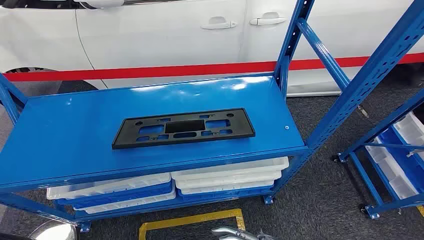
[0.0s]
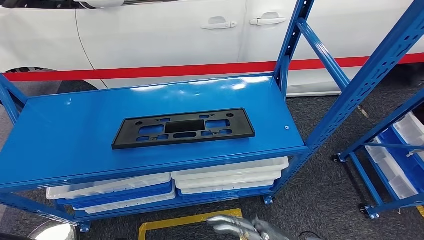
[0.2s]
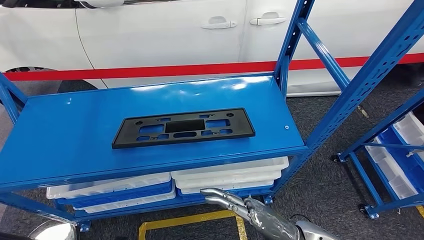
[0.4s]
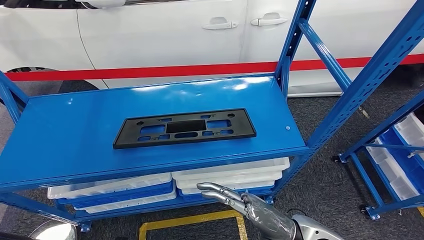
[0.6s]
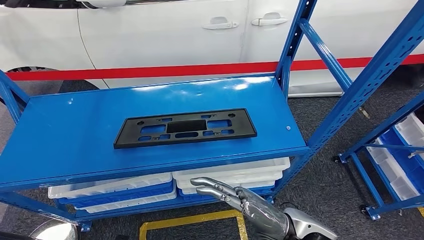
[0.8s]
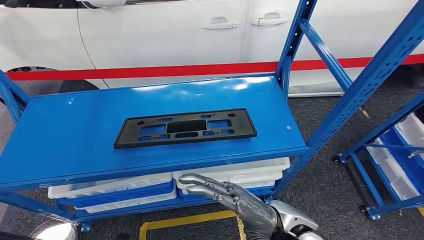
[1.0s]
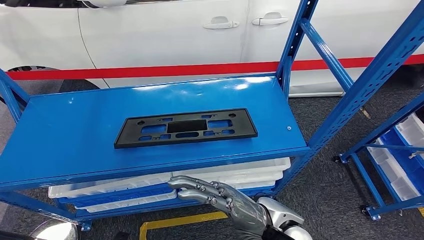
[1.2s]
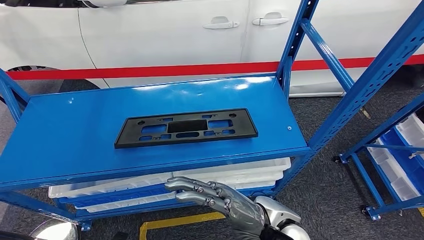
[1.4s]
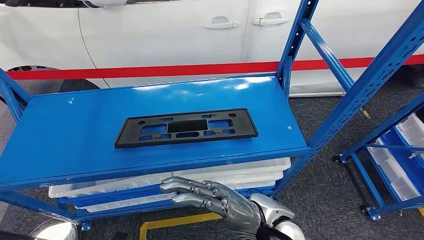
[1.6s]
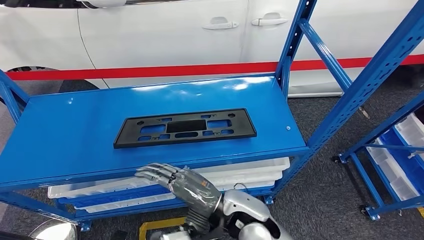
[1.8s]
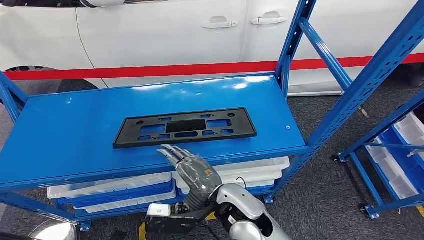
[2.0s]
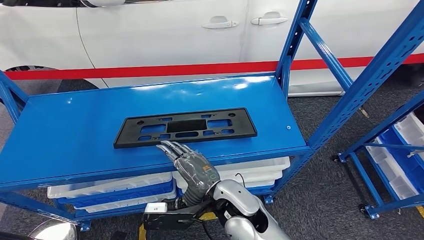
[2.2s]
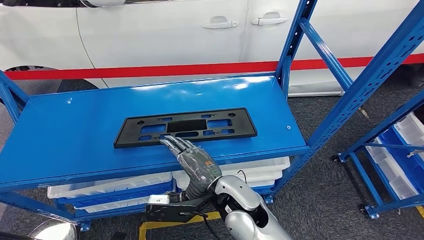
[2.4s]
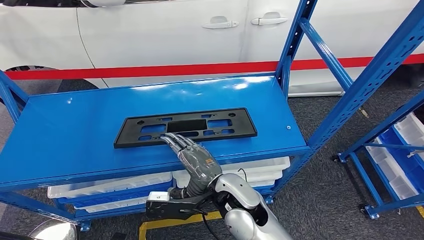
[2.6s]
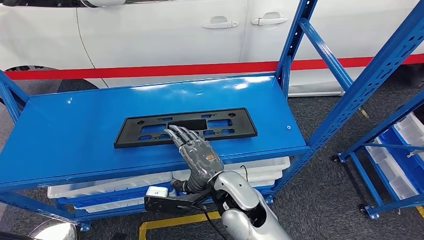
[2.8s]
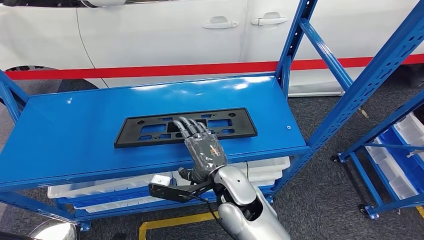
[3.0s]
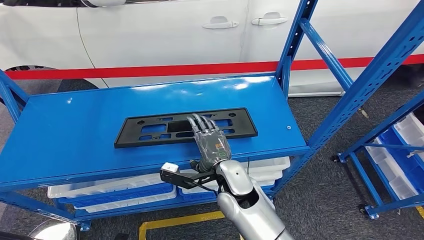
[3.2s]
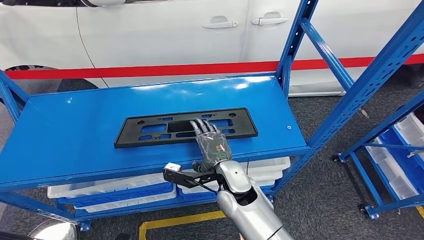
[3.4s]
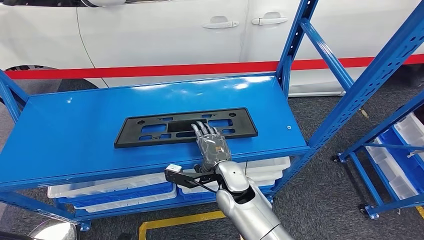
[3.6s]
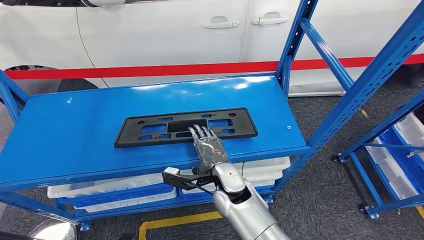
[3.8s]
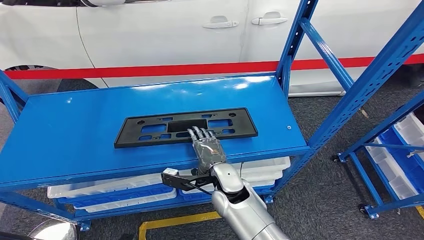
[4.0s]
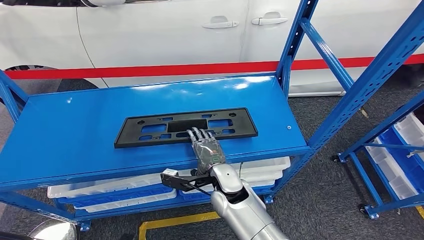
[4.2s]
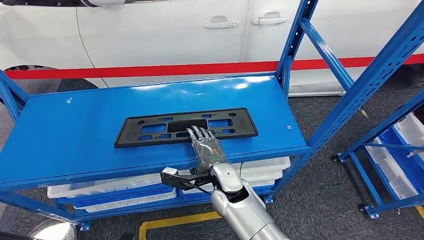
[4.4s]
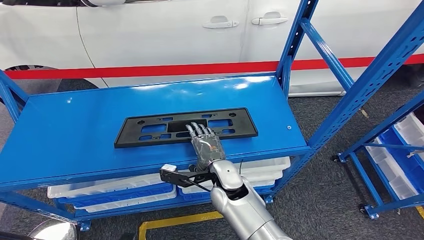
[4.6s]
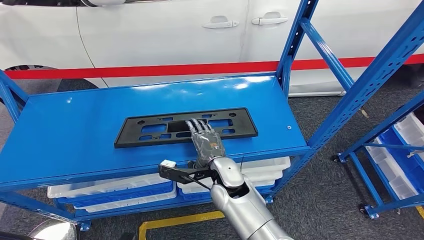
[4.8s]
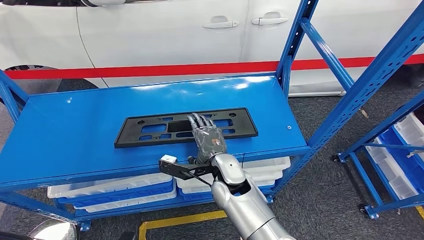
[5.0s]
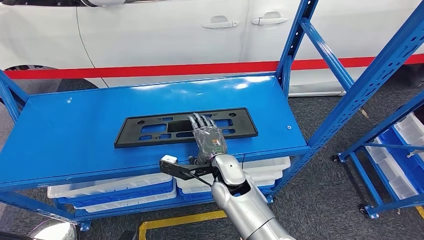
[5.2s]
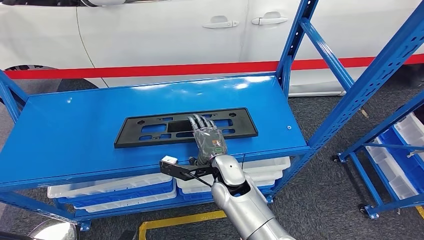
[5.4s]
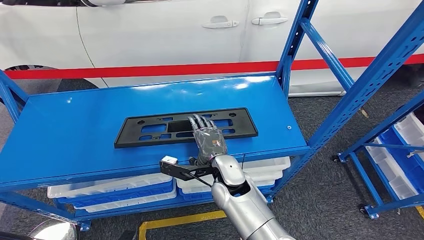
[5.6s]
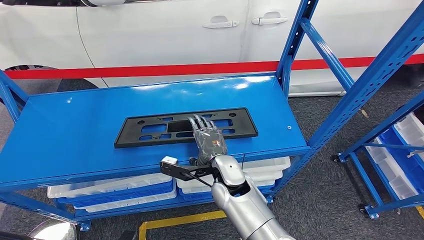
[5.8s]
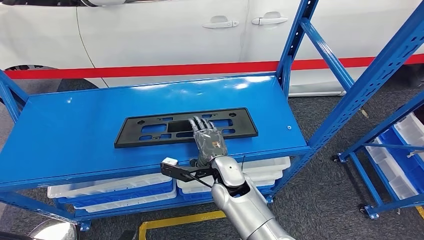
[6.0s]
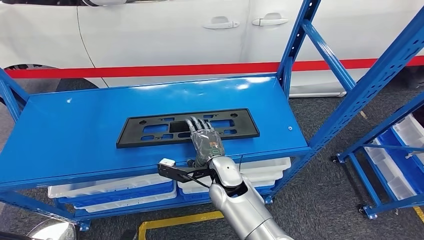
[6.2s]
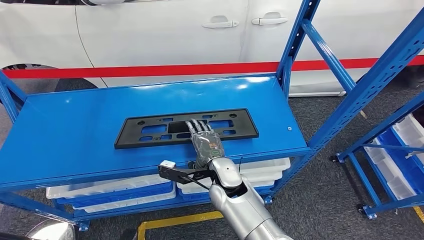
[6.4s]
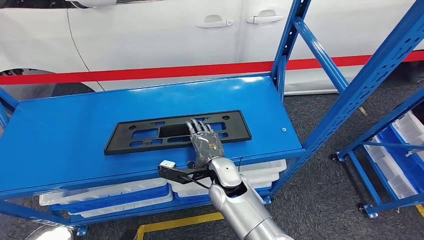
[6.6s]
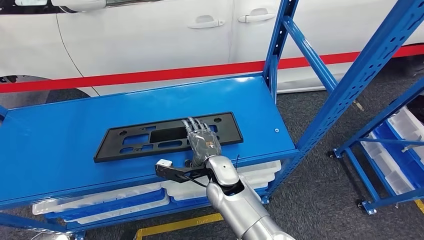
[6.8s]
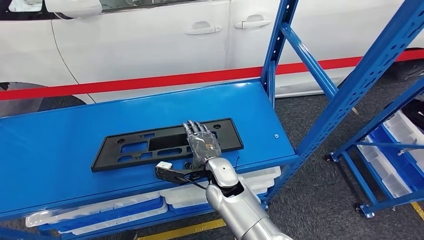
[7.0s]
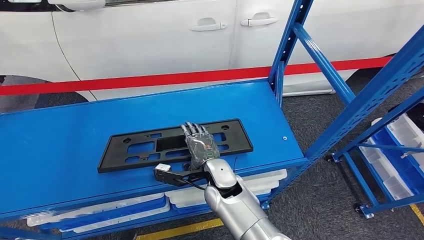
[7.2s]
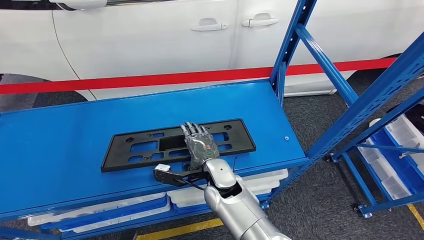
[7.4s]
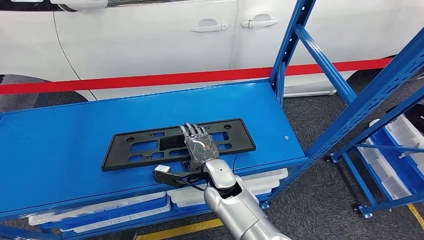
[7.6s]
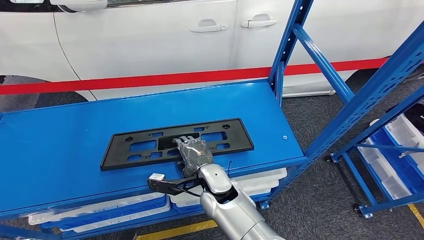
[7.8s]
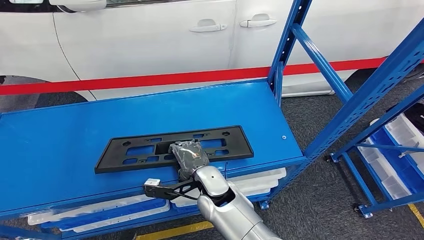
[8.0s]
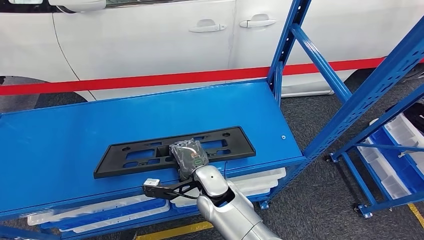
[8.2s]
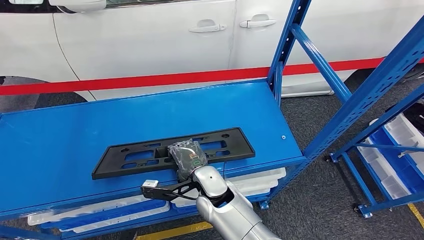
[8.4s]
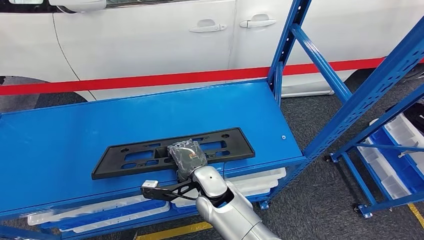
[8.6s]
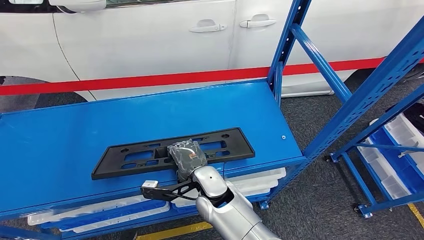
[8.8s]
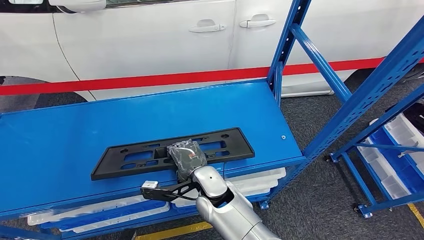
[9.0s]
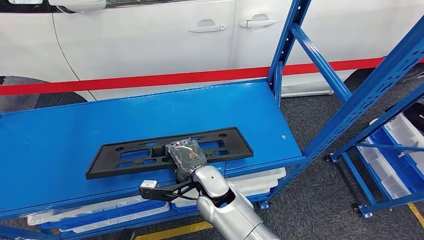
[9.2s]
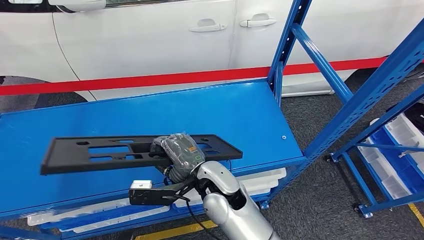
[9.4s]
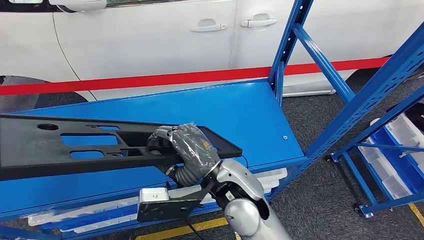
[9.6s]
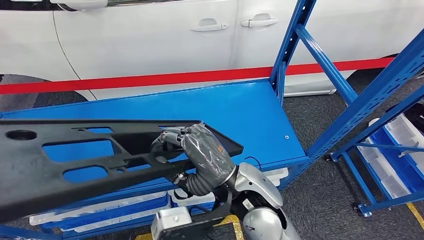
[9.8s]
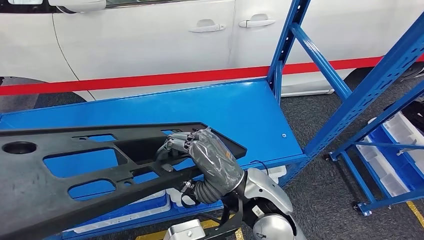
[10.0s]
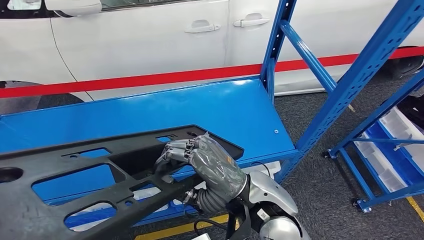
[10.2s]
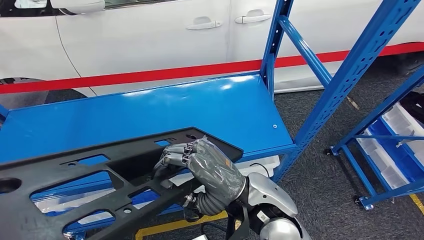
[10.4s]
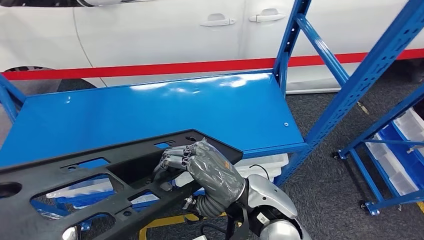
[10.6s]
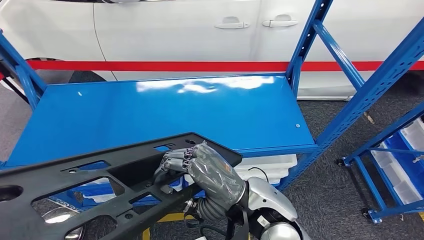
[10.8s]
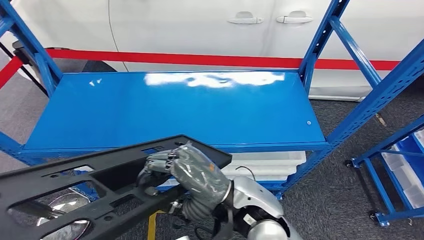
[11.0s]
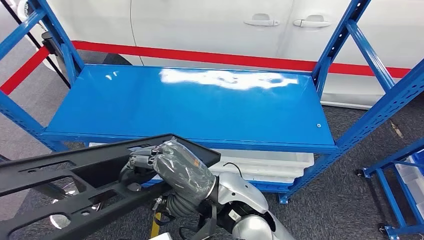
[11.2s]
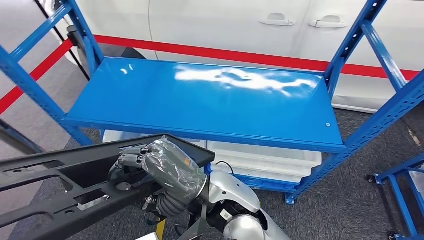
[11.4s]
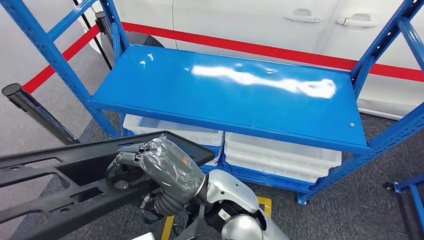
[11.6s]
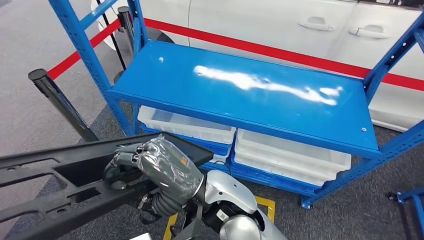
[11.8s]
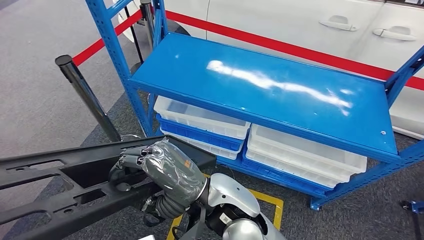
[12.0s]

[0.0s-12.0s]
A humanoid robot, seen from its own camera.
1.6s to 3.0s: The right hand is displaced to the left by some 5 cm.
3.0s to 4.4s: The right hand goes some 5 cm downward.
4.4s to 6.0s: The hands stay close to where they were, moving slightly.
7.6s to 9.0s: The hands make only small movements.

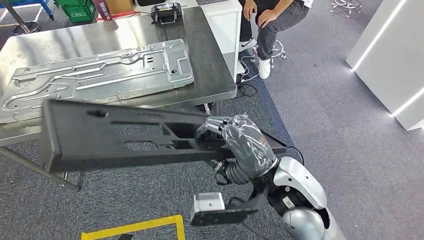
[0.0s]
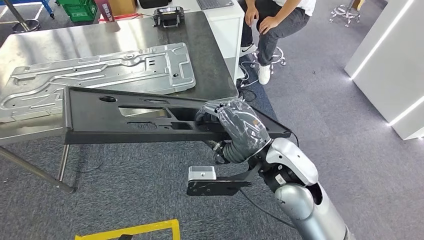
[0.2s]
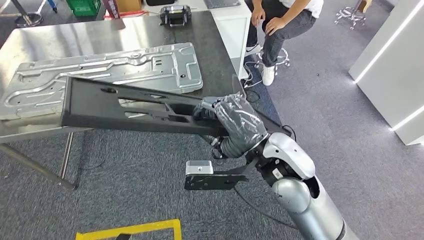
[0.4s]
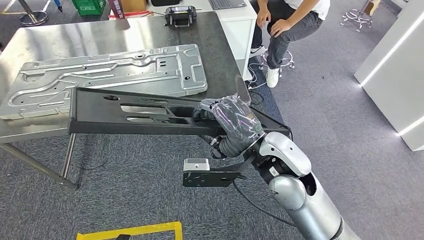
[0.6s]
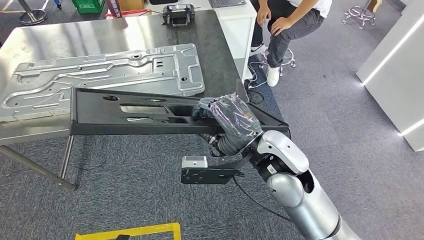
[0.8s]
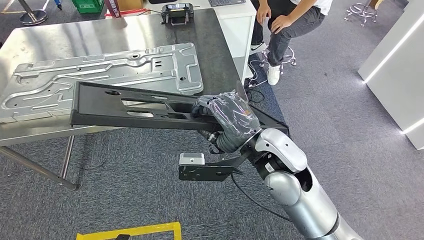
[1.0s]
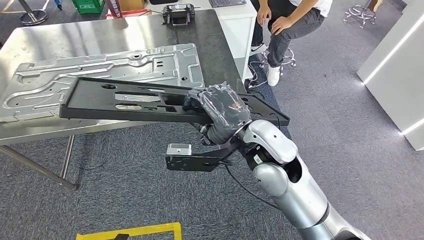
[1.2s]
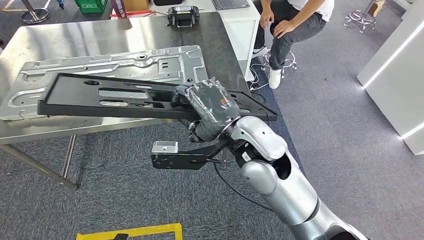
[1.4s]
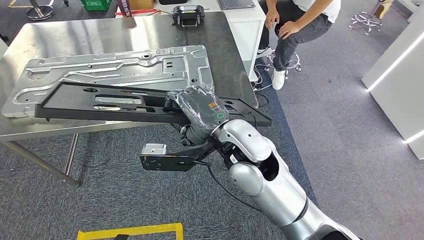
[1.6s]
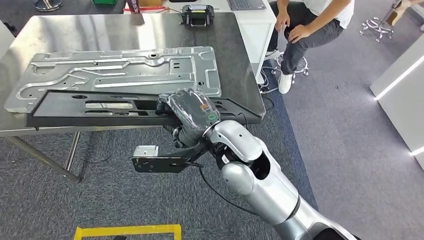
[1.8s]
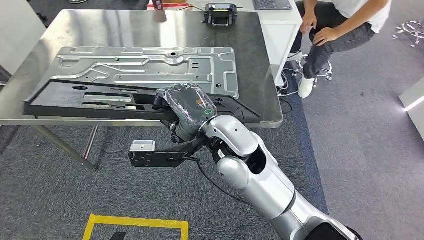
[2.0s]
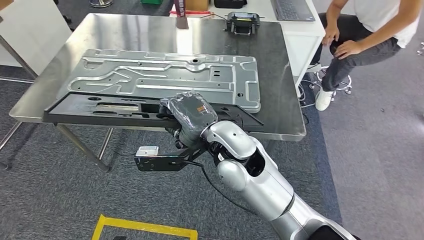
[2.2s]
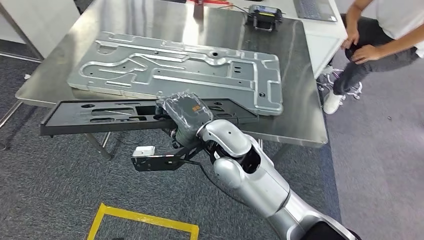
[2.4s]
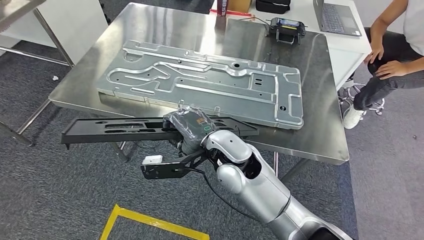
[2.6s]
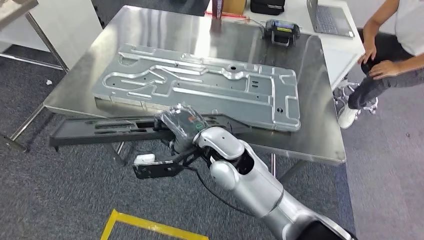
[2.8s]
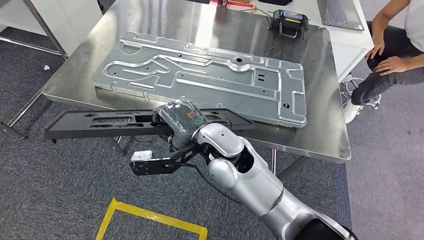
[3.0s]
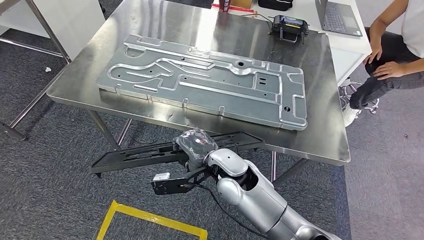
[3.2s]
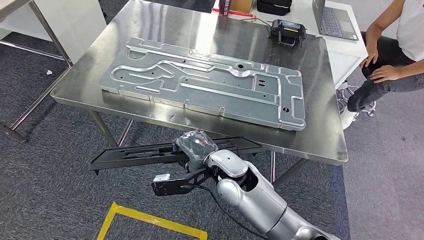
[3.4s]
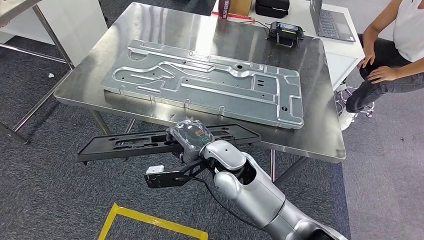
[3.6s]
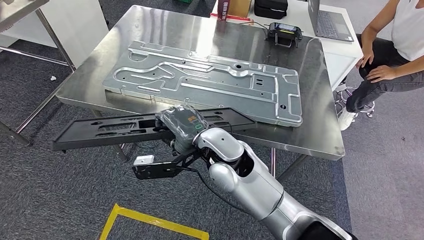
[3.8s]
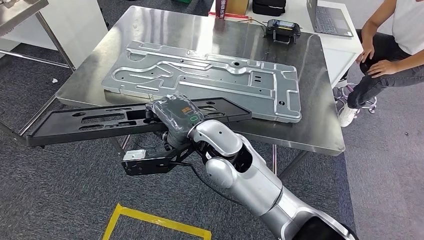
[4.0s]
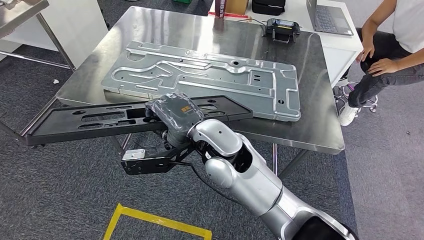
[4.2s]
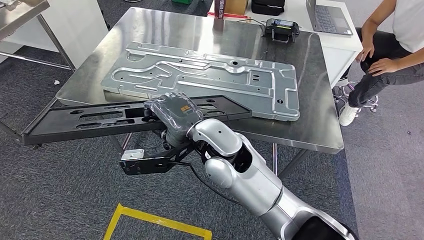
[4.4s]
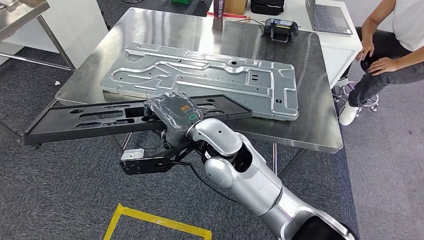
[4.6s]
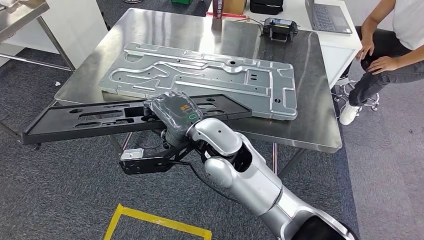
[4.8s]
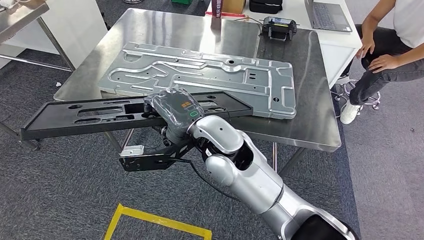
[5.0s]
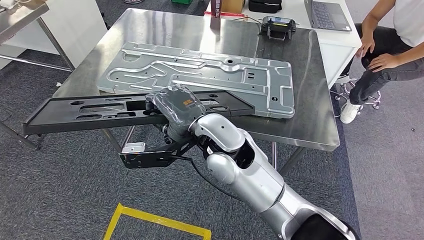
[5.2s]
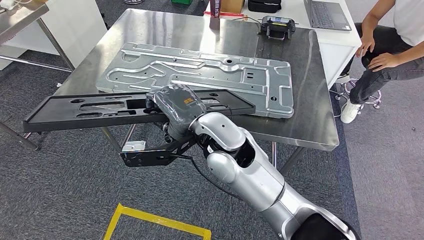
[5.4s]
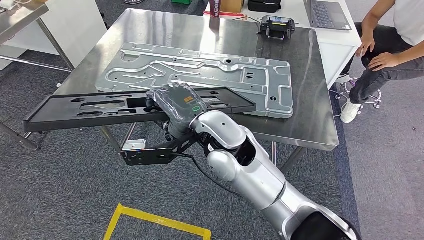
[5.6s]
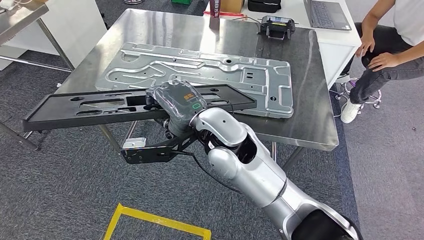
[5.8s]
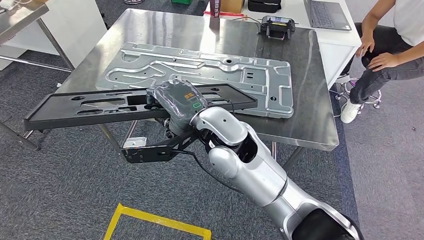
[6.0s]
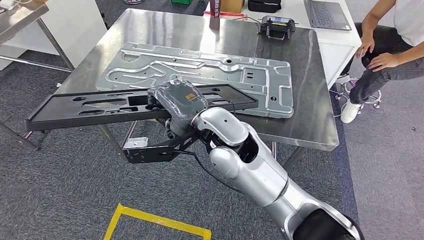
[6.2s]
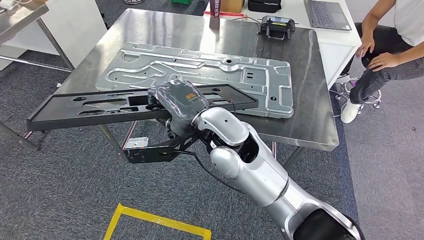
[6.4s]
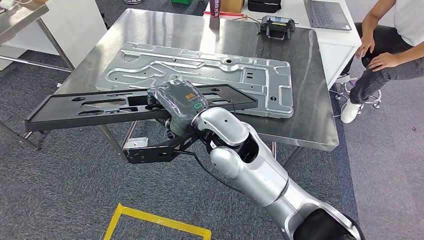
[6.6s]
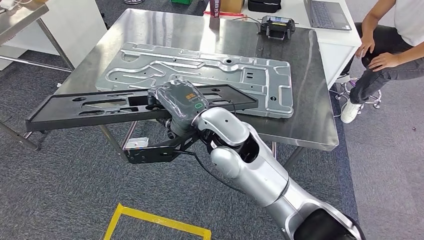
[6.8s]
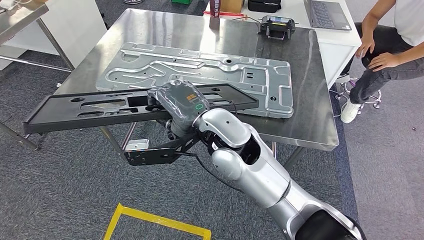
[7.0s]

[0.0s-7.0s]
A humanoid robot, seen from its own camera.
Step, 0.0s to 5.6s: Move the large material to the workbench.
5.6s to 7.0s: The two hands keep their place.
